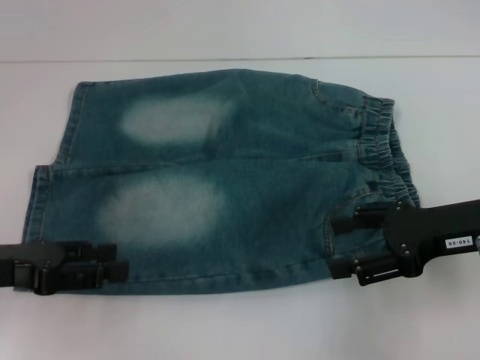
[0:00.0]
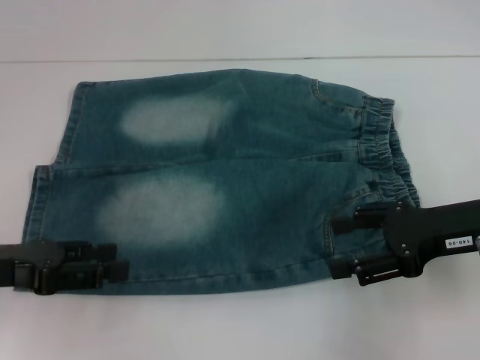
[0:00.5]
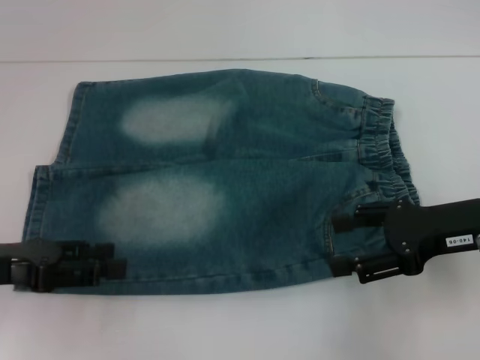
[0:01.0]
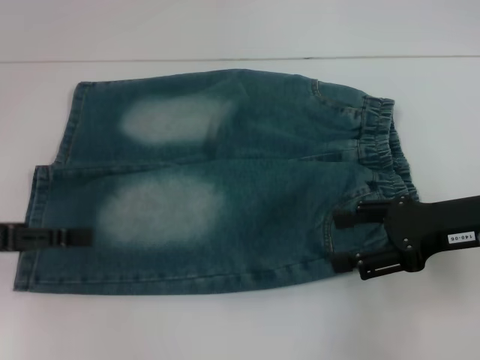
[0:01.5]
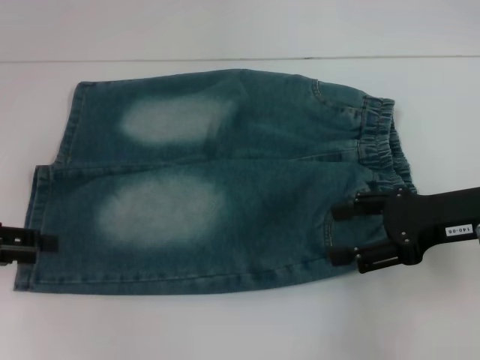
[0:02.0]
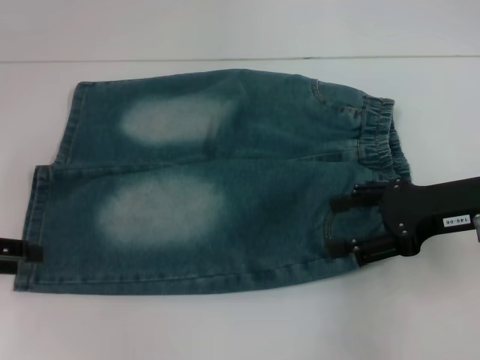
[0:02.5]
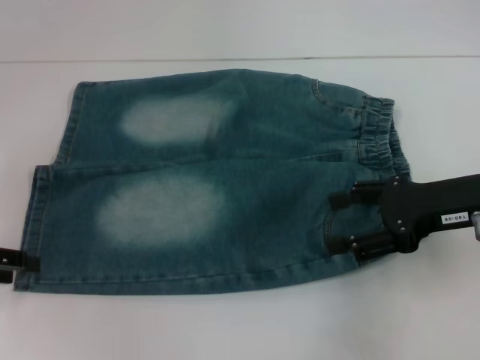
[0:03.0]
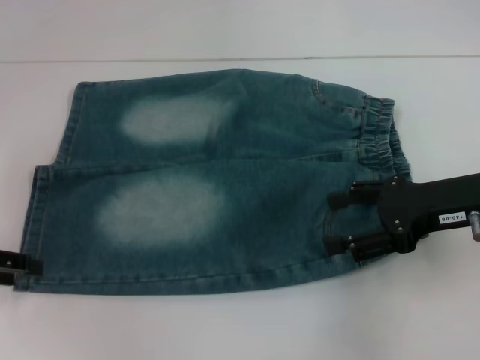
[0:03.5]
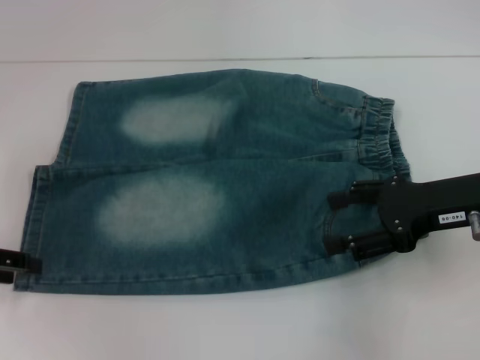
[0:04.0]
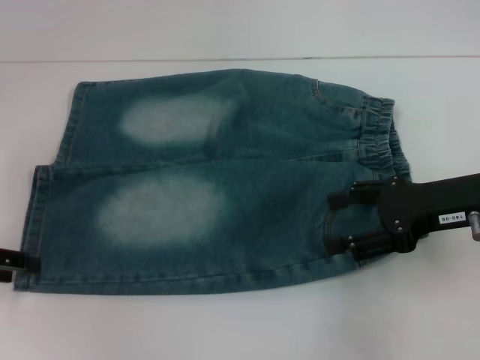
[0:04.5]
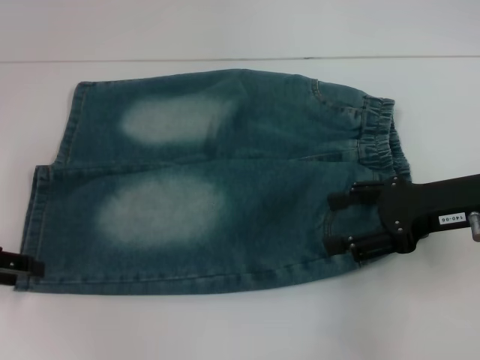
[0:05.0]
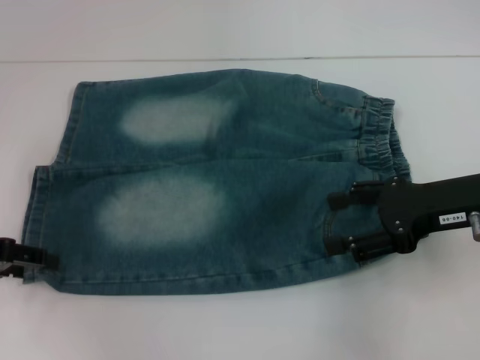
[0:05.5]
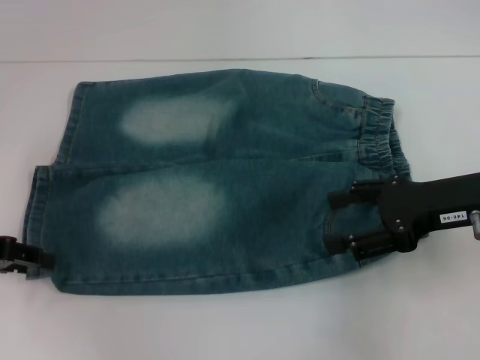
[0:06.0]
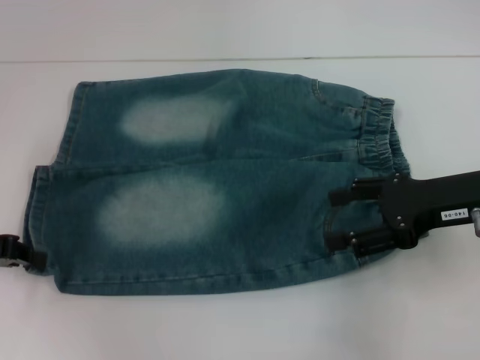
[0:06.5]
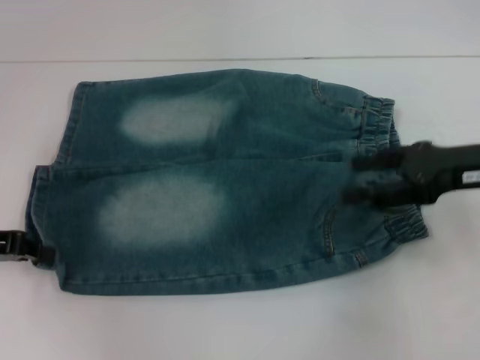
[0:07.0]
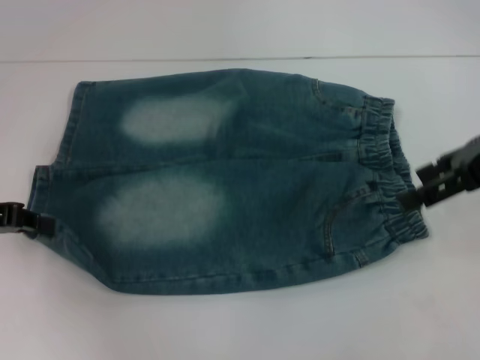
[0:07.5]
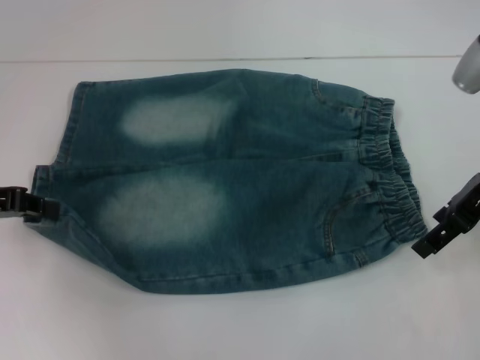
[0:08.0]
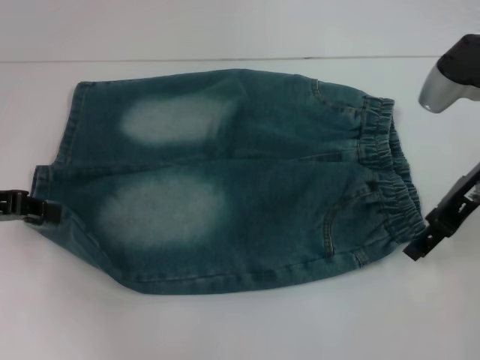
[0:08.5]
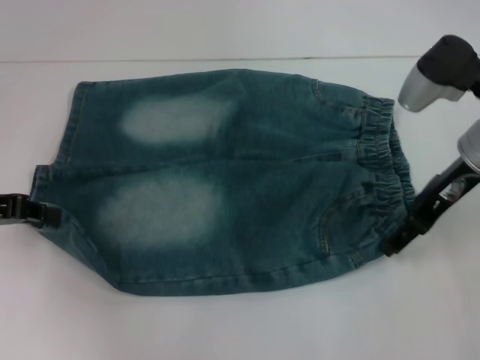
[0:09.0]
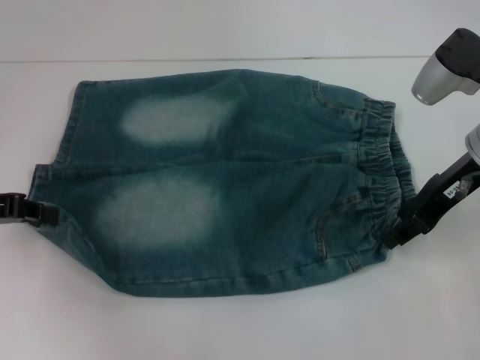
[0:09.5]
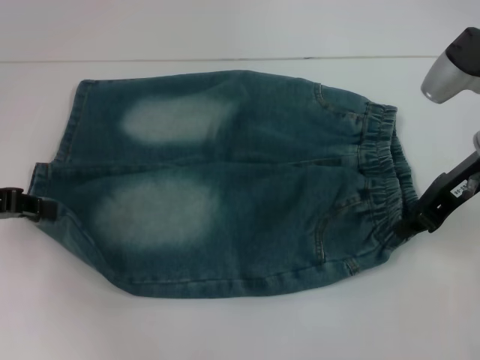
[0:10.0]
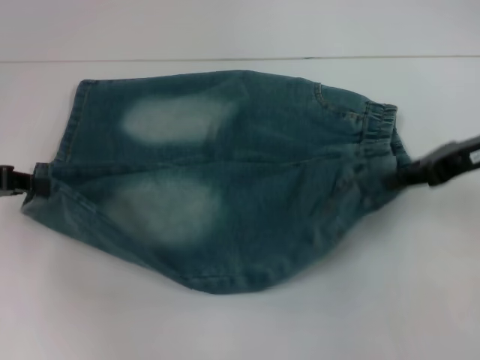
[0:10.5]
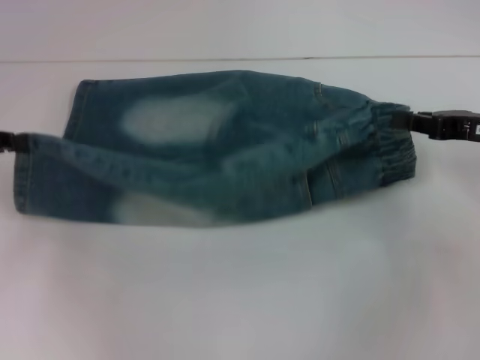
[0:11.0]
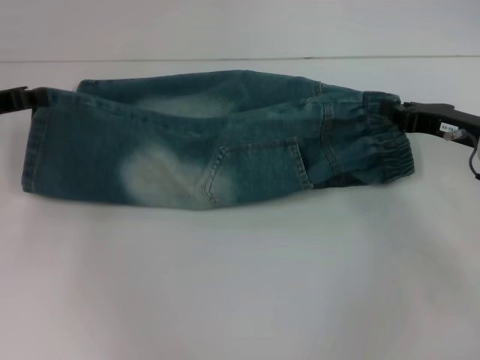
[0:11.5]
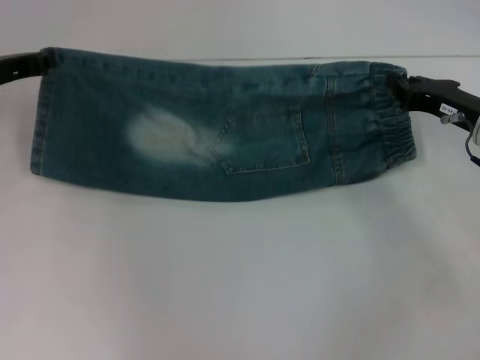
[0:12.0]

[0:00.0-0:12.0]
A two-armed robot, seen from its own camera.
Step, 0.0 to 6.5 s: Grab the lower left pant leg with your left hand.
Step, 7.0 to 10.5 s: Hold the lower right waistband with your right hand.
0.0 to 2.0 s: The left gripper goes roughly 5 cm to the left.
2.0 to 6.0 s: The grippers move only a little.
6.0 to 8.0 s: The left gripper closes its fingers, while the right gripper travels forward by about 5 cm.
8.0 to 10.0 s: The right gripper closes its fingers.
10.0 to 12.0 s: The right gripper heads downward, covering approximately 5 cm. The left gripper shifts approximately 10 cm forward.

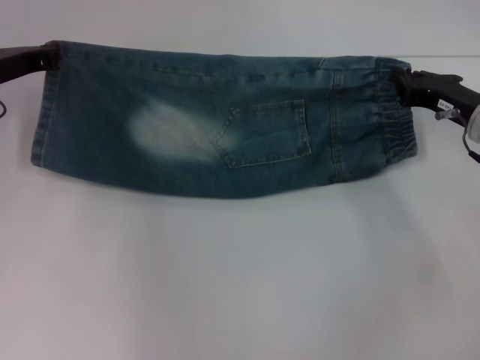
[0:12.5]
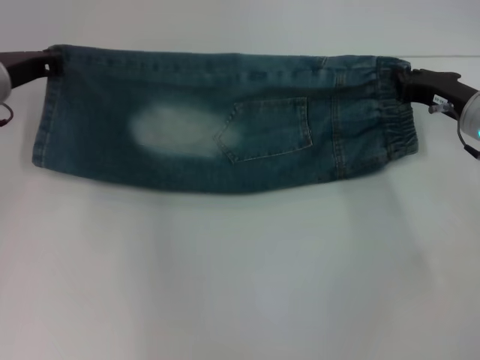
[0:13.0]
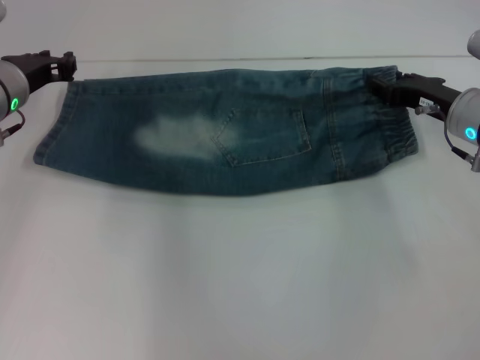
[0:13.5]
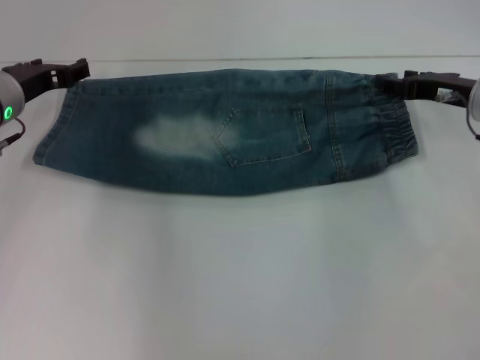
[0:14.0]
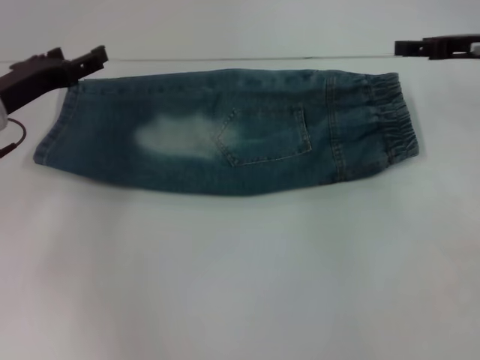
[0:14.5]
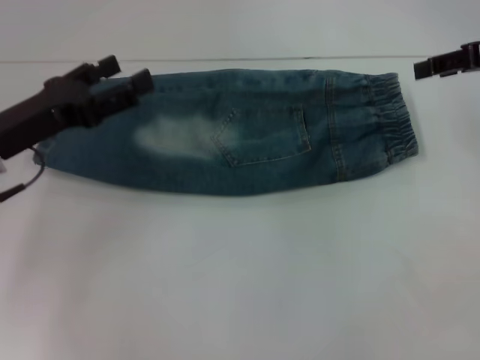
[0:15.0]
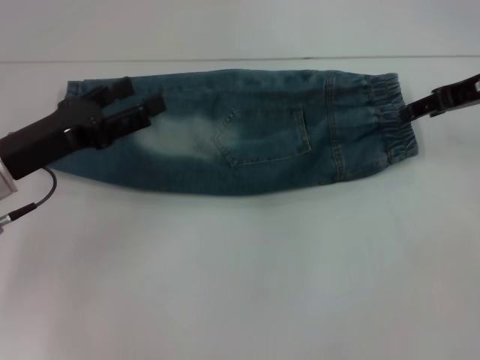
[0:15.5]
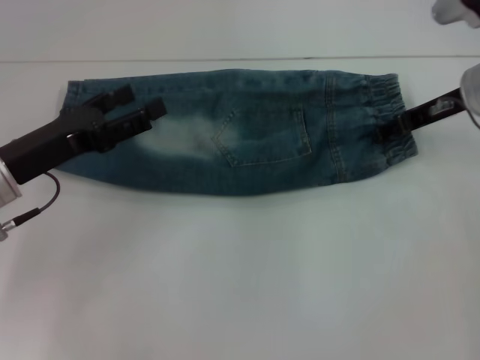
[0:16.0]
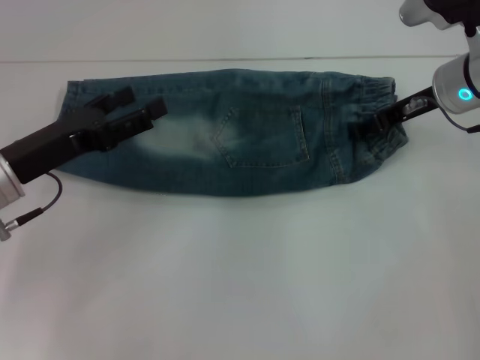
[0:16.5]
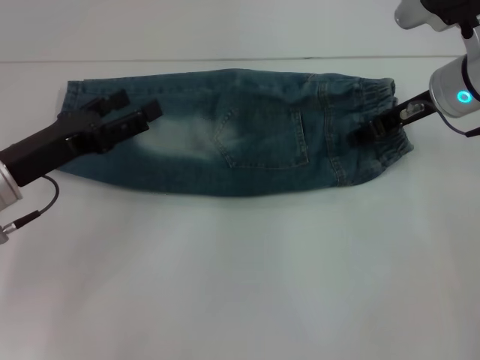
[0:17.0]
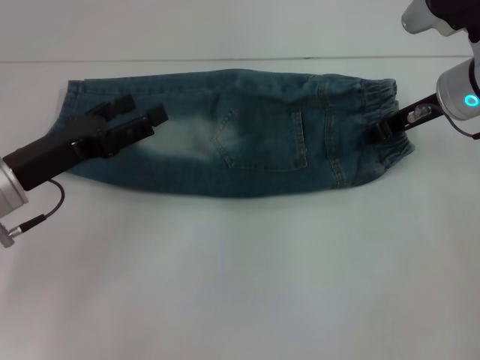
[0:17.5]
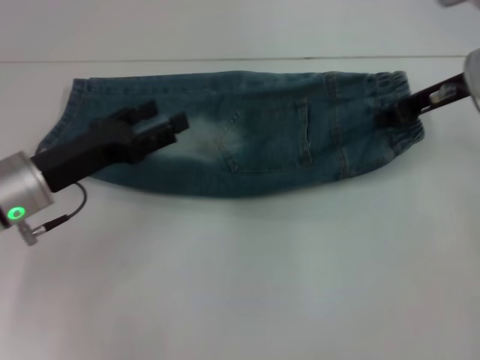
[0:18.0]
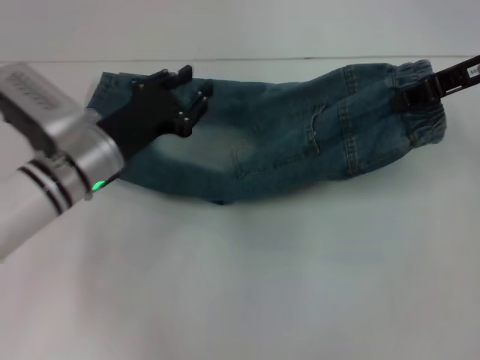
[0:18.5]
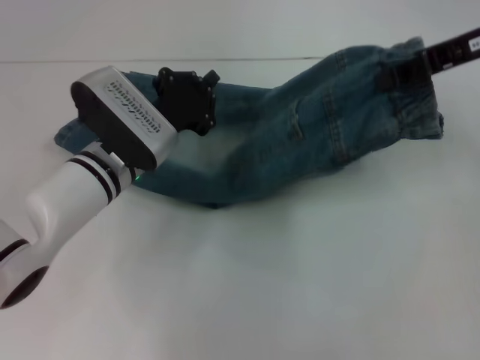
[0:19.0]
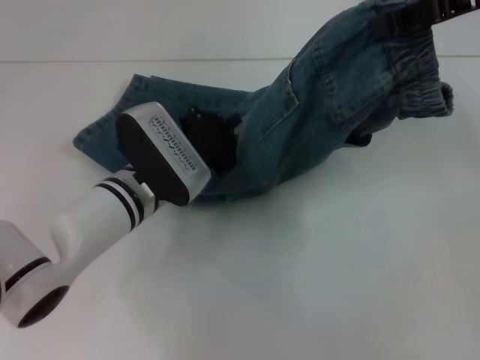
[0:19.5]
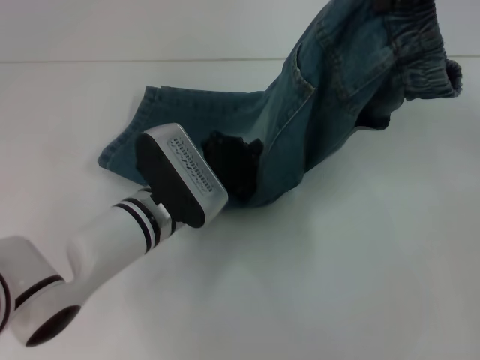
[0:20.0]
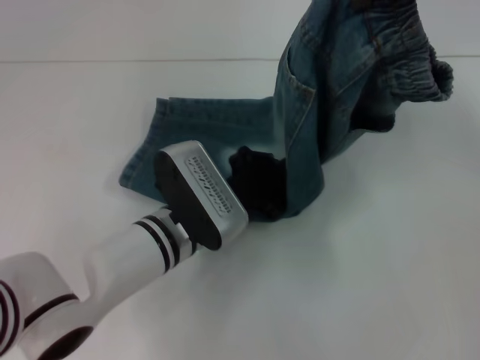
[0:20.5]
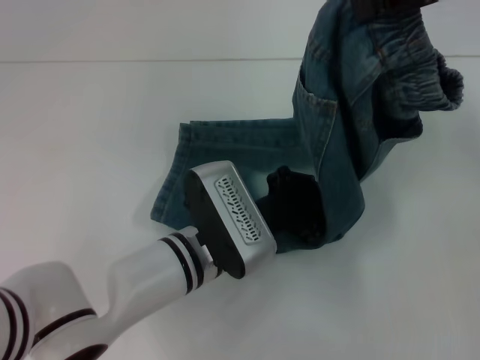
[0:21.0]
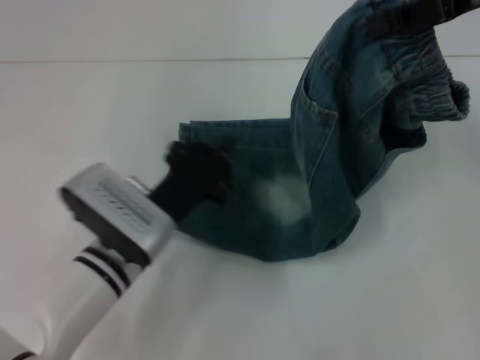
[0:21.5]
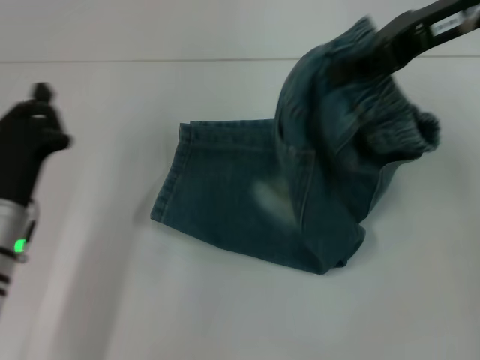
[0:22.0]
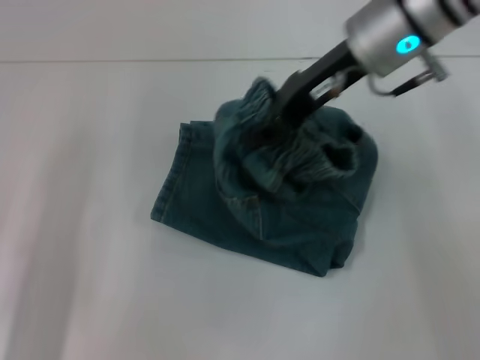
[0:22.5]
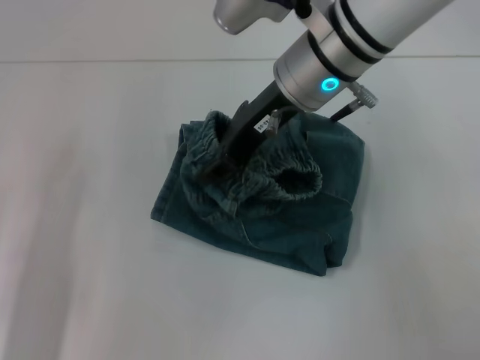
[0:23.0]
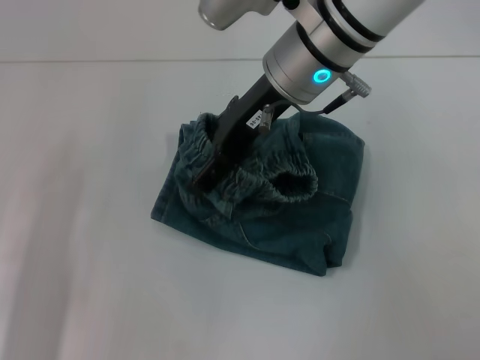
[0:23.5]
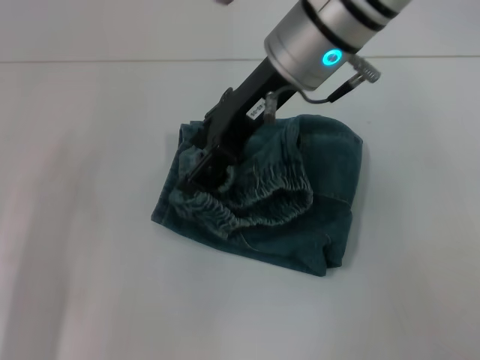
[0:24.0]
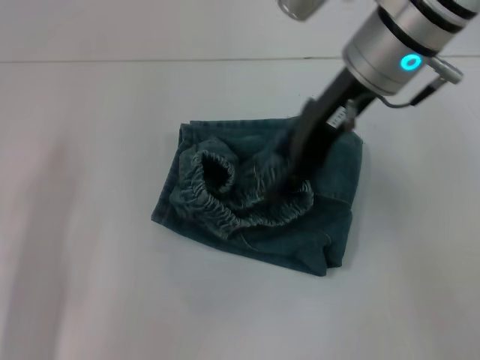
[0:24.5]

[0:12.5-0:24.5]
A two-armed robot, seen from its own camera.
Step, 14.5 to 17.5 s: Grab the waistband with your right hand.
Step, 18.0 to 21.0 s: Press the middle of the pants with your left hand.
Step, 21.5 to 24.0 s: Fold to the left with your right hand.
12.5 to 14.5 s: The right gripper goes roughly 10 cm upward, and opens its fingers. The left gripper ends up some 5 cm from where it was, and opens its fingers.
14.5 to 16.5 s: The left gripper travels backward by about 5 cm; the right gripper travels to the left by approximately 10 cm.
16.5 to 18.5 s: The right gripper shifts some 10 cm upward, and closes its fingers; the left gripper travels to the right by some 10 cm, and closes.
18.5 to 20.5 s: The right gripper travels upward by some 10 cm; the left gripper goes roughly 10 cm to the right, and closes its fingers.
20.5 to 22.5 s: The right gripper goes approximately 15 cm to the left and downward. The left gripper shifts roughly 20 cm to the left.
22.5 to 24.5 s: The right gripper opens up.

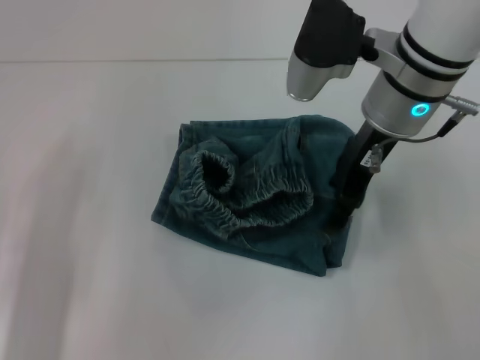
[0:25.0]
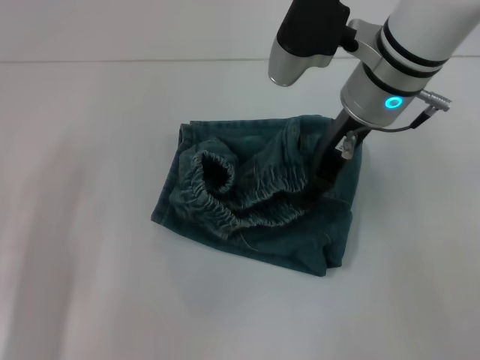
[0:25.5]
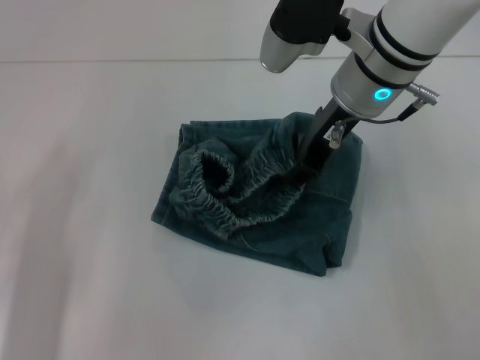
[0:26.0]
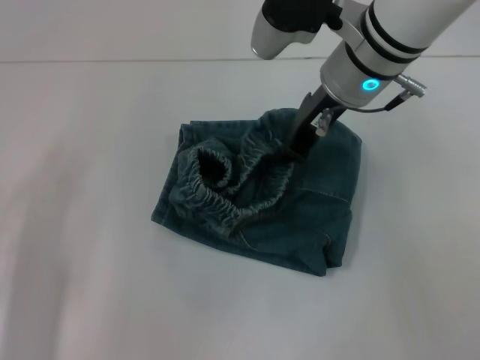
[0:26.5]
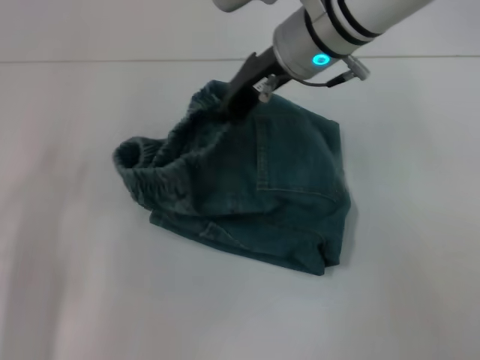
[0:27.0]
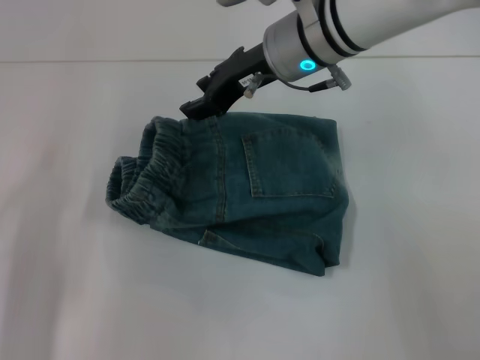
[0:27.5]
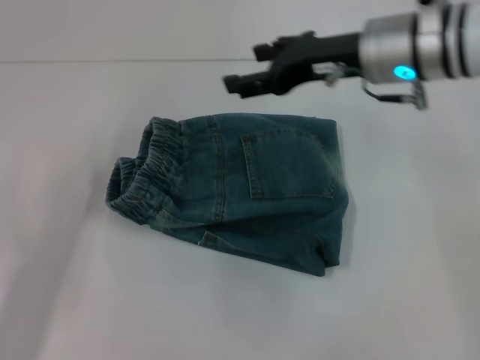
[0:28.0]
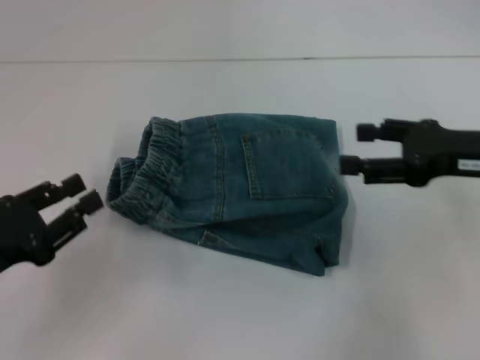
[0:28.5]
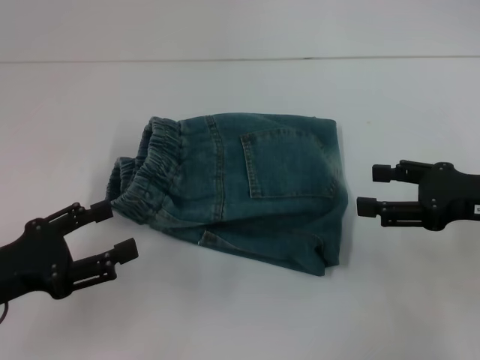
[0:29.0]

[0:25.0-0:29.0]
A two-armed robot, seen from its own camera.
Step, 25.0 to 27.0 s: Adjust the pants with your right hand.
25.0 to 27.0 s: The right gripper is displaced to the left by roughly 5 cm, and closes up.
27.0 to 29.0 s: The left gripper shifts approximately 5 cm upward, and opens up. Meanwhile the right gripper is displaced to the right, backward and downward by approximately 30 cm, and opens.
